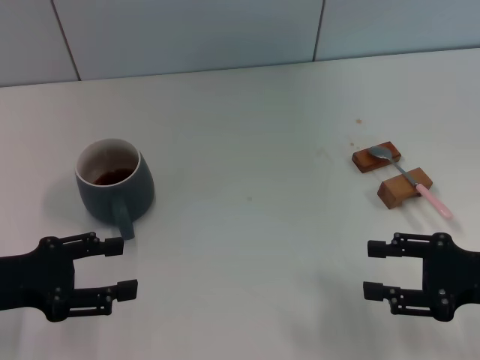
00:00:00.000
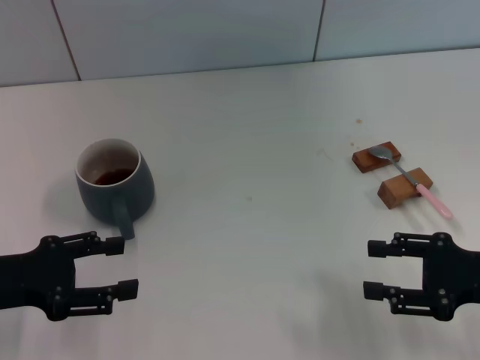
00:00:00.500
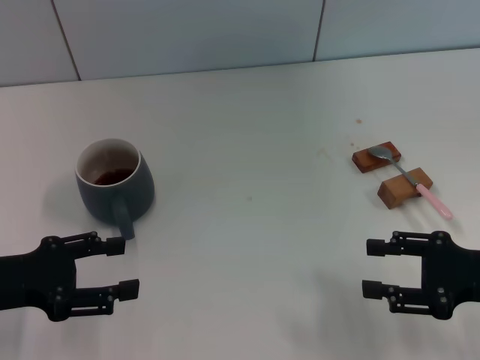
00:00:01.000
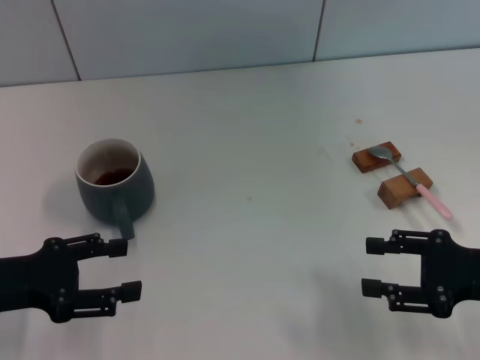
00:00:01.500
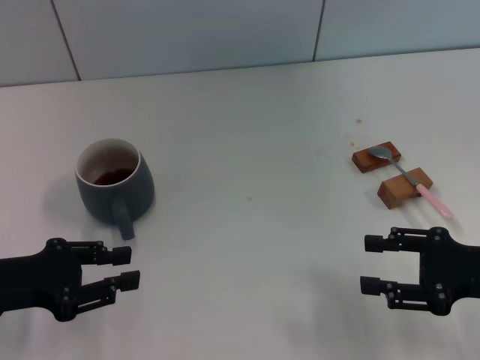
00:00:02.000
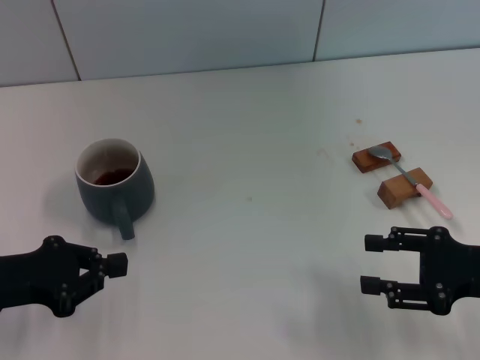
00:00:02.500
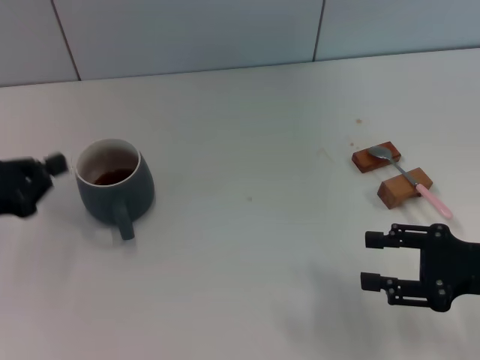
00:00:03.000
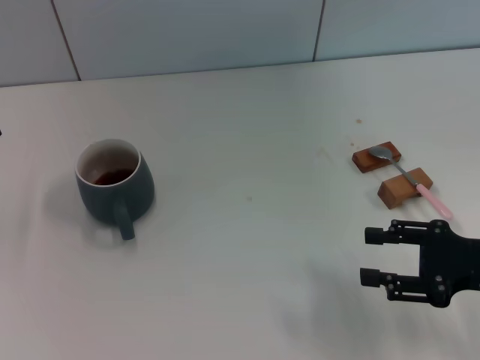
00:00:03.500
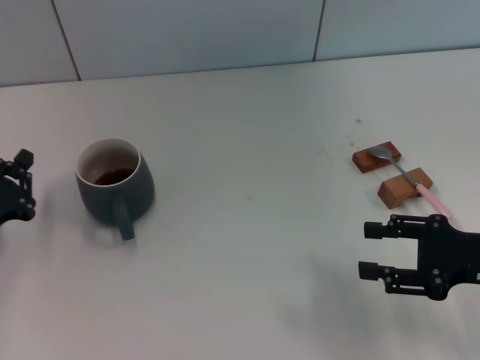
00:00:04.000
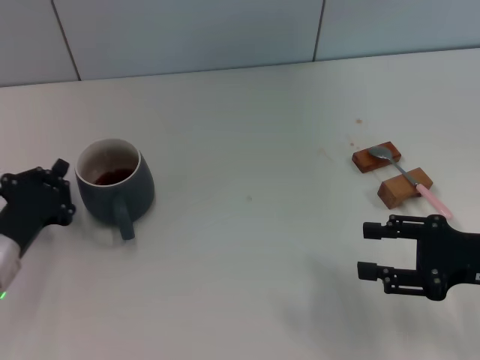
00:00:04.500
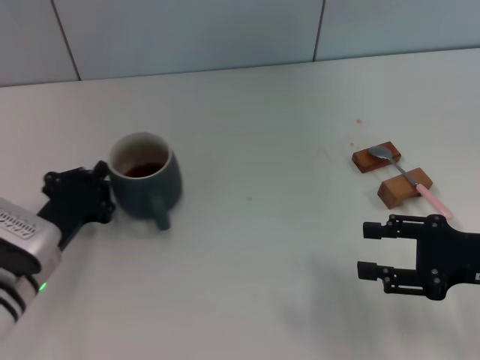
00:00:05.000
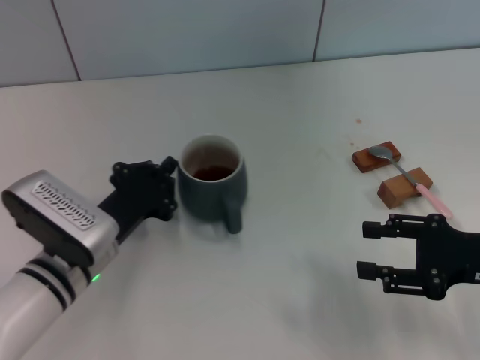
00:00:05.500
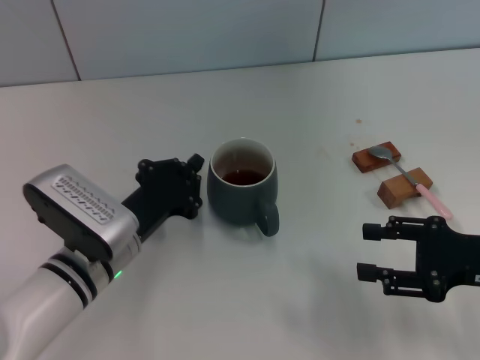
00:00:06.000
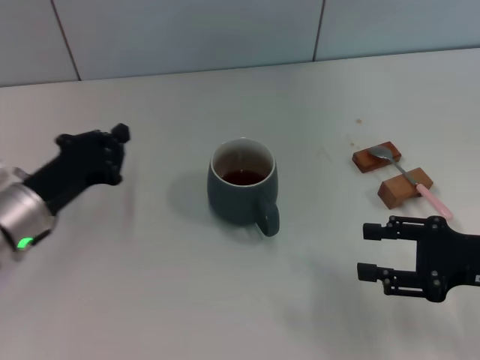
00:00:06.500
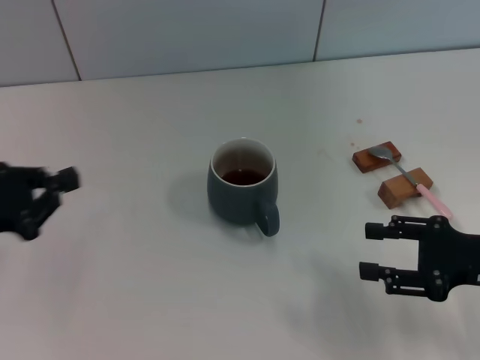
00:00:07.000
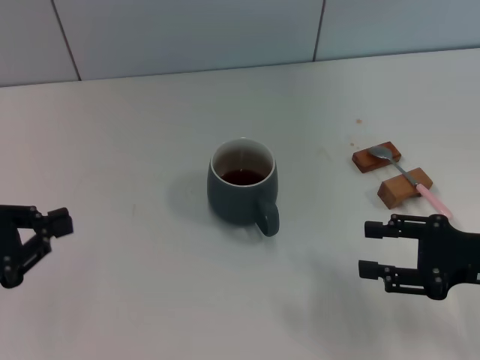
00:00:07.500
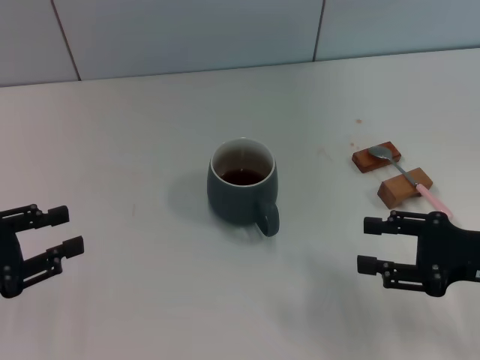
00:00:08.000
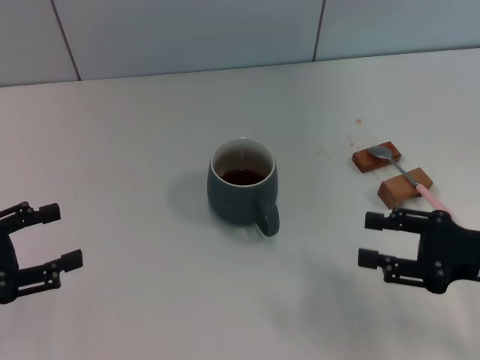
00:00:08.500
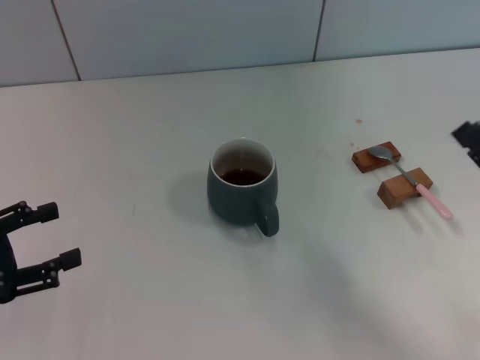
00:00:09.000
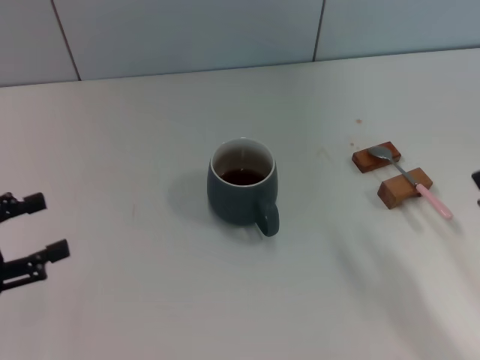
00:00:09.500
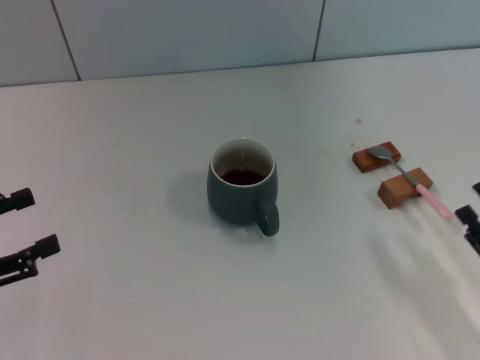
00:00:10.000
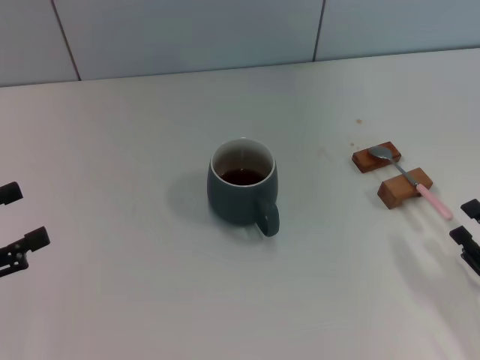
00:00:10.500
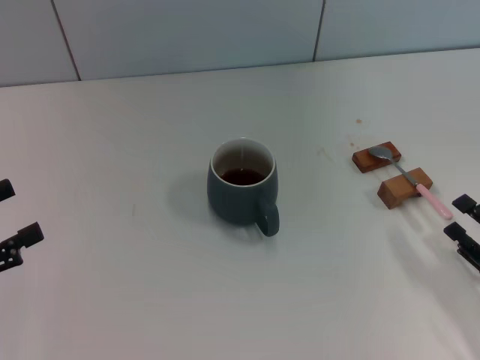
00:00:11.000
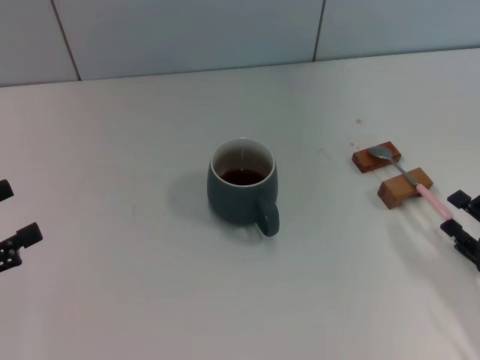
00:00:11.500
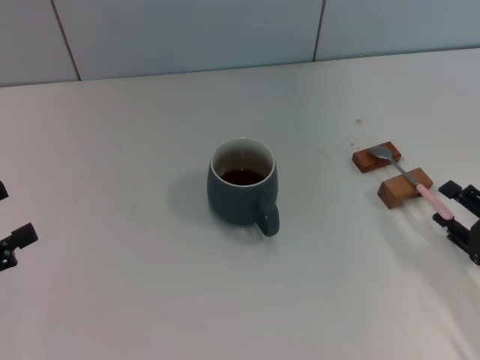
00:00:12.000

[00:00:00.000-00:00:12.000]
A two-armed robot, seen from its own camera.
Task of the whole recording: Move the grey cup to the center, lift the pink spoon, stir it three times in the cup, and put the spoon into the cup.
Step, 00:00:00.000 to 00:00:06.000: Move the cup with coffee to the center of view with the left gripper.
00:00:00.000 to 00:00:02.000: Neither gripper changes place.
00:00:02.000 to 00:00:04.000: The left gripper travels downward by roughly 5 cm, and closes up.
00:00:04.000 to 00:00:06.000: The left gripper heads to the right, covering about 15 cm.
00:00:06.000 to 00:00:08.000: The left gripper travels to the left by approximately 20 cm, and opens.
00:00:08.000 to 00:00:10.000: The right gripper travels backward and downward by roughly 10 cm; the left gripper opens.
00:00:10.000 to 00:00:12.000: The right gripper shifts by about 5 cm.

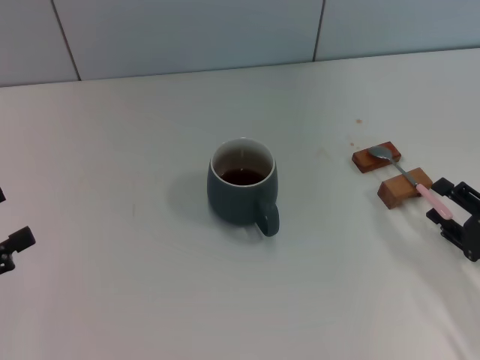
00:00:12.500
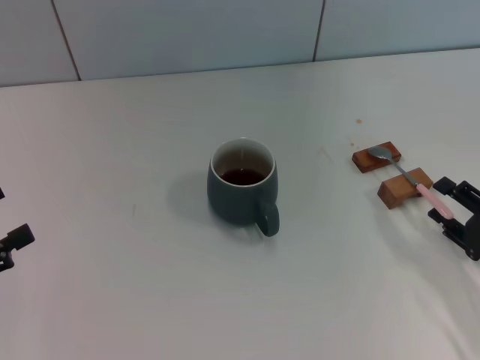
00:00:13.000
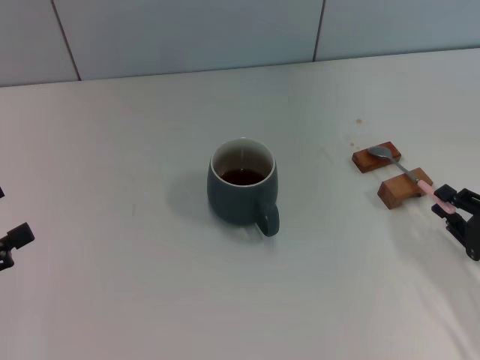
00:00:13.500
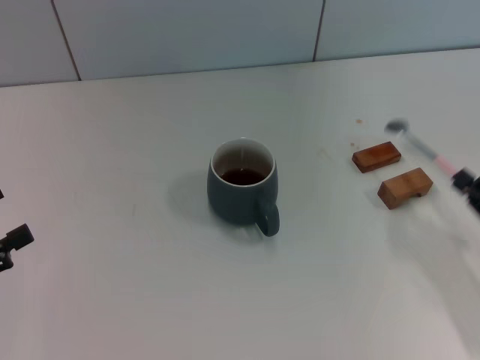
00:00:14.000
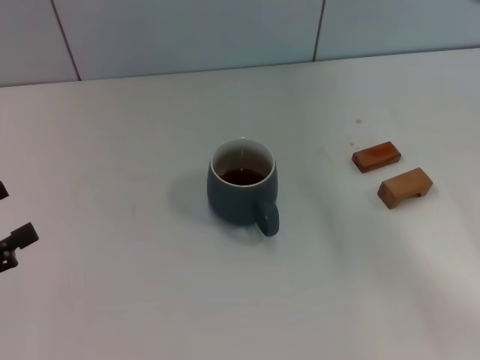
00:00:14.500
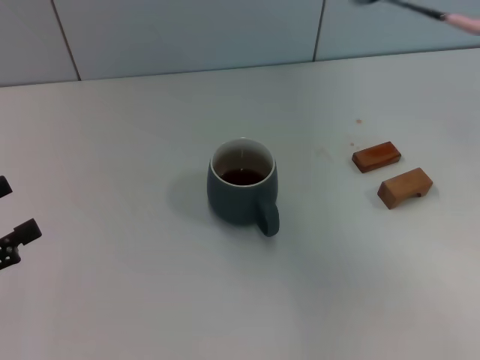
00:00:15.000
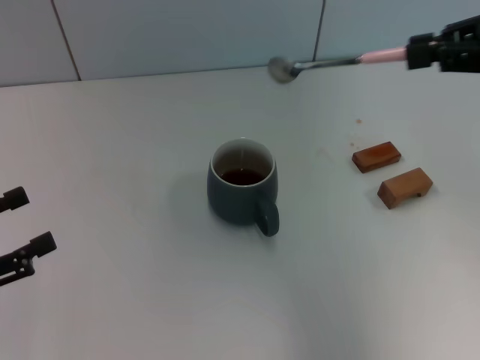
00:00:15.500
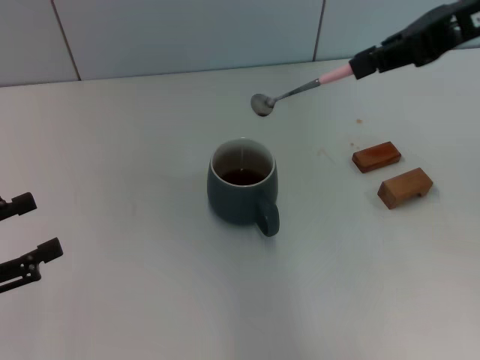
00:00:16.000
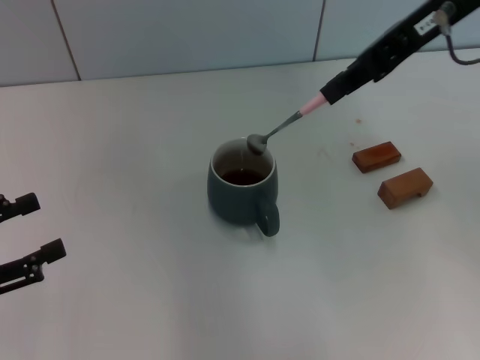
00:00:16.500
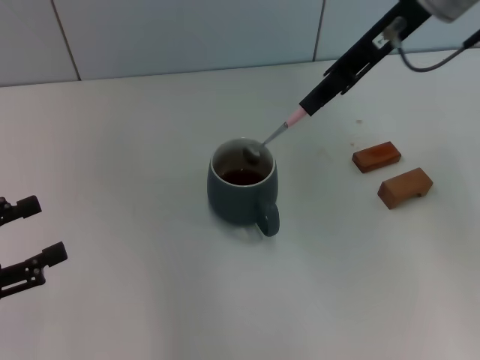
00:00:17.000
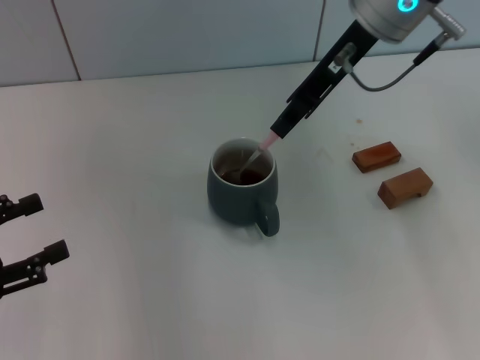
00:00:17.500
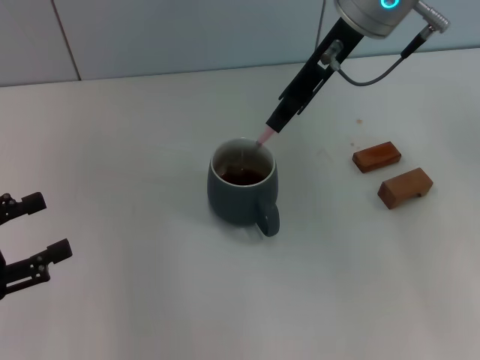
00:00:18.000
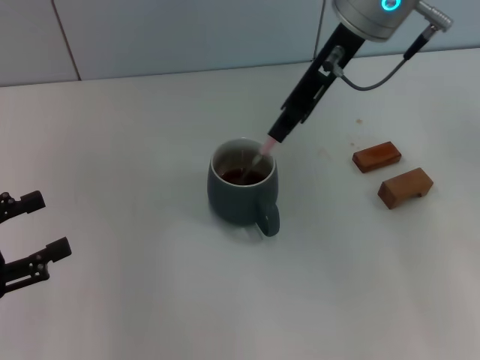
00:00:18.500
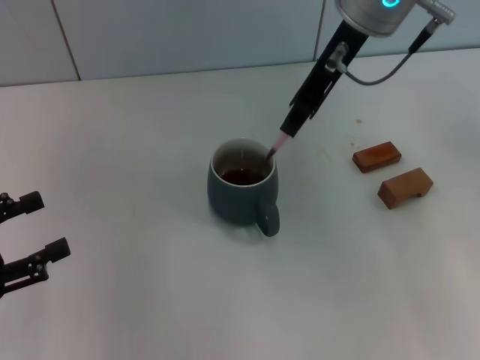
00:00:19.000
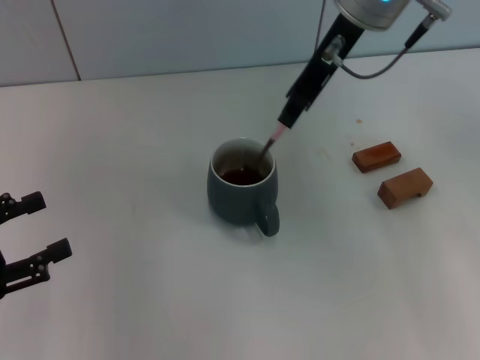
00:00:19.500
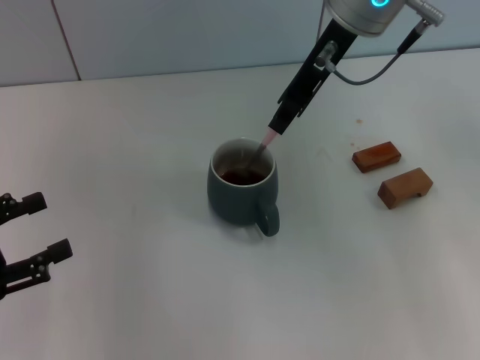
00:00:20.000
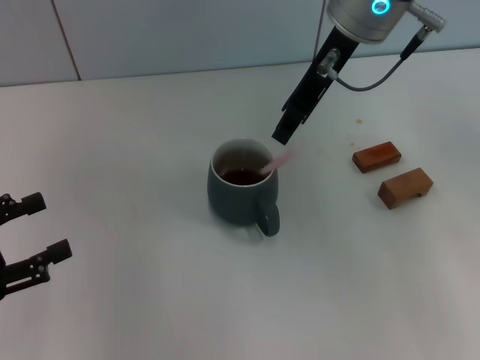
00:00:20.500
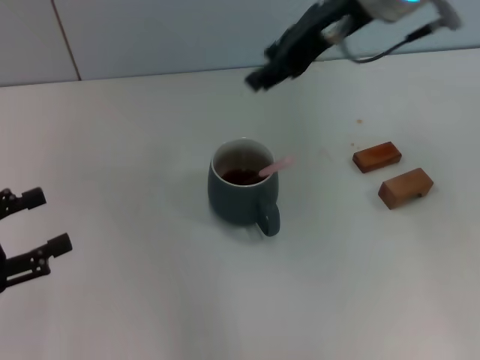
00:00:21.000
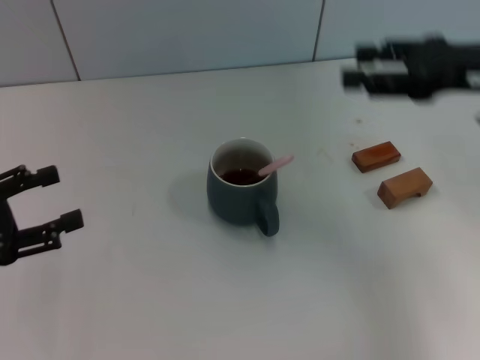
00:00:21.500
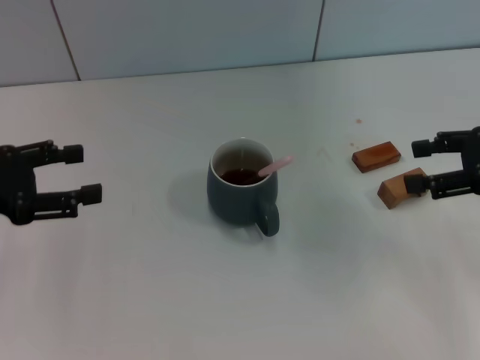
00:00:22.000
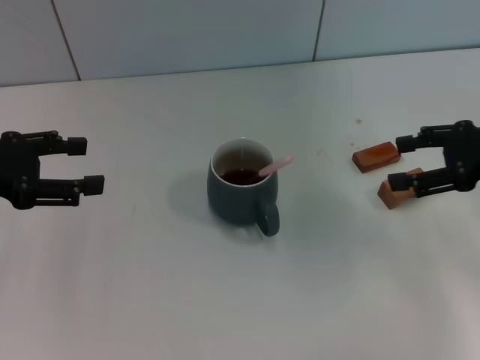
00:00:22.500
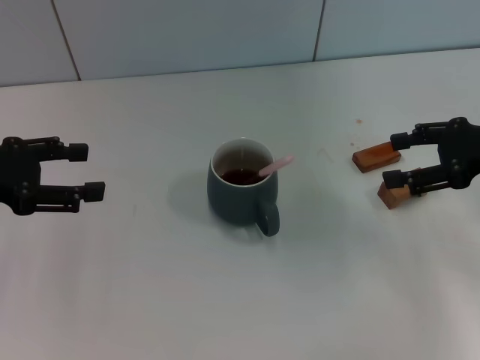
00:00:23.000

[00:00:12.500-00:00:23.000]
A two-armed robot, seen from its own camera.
Task of the whole recording: Move the grey cup to the center, lift the pink spoon, stir it three times in the cup, and put the spoon into the cup.
Step, 00:00:14.000 to 00:00:20.500: Stir the coffee in the cup with the right gripper.
00:00:12.500 to 00:00:14.500: The right gripper is displaced upward by about 10 cm, and closes up.
00:00:14.500 to 00:00:16.500: The right gripper shifts some 30 cm upward, forward and to the left.
00:00:16.500 to 00:00:19.000: The right gripper shifts some 10 cm to the left.
00:00:19.000 to 00:00:21.000: The right gripper opens.
00:00:21.000 to 00:00:23.000: The left gripper moves forward and upward, approximately 10 cm. Meanwhile the right gripper moves to the right and downward, roughly 25 cm.

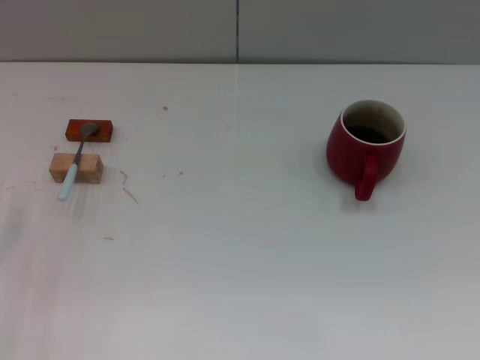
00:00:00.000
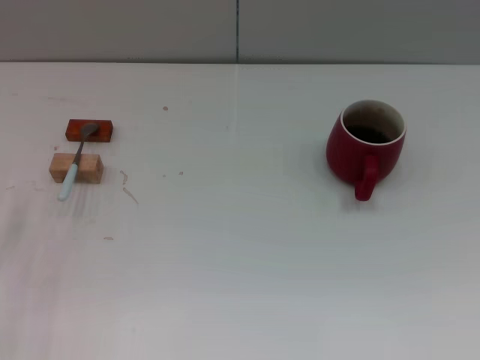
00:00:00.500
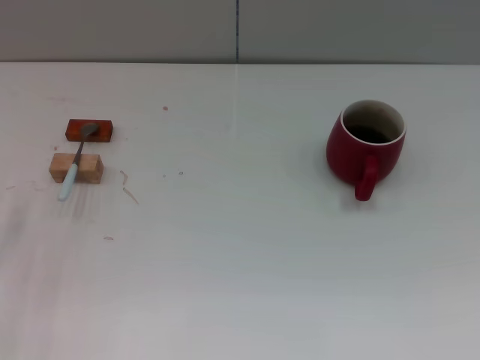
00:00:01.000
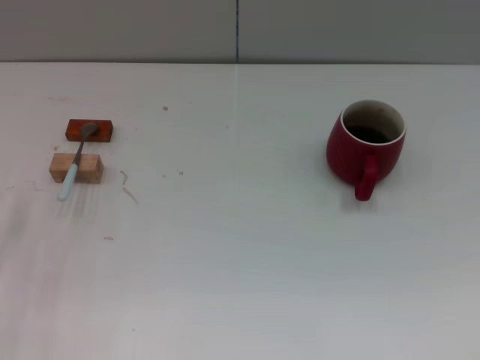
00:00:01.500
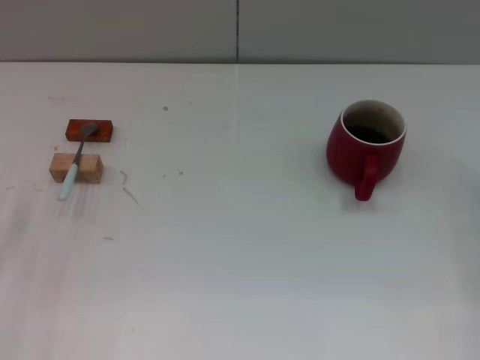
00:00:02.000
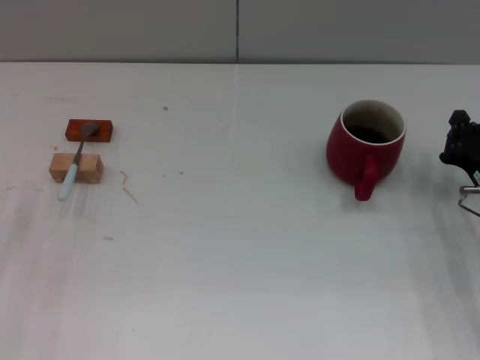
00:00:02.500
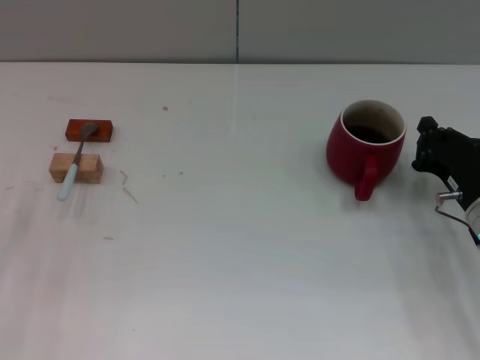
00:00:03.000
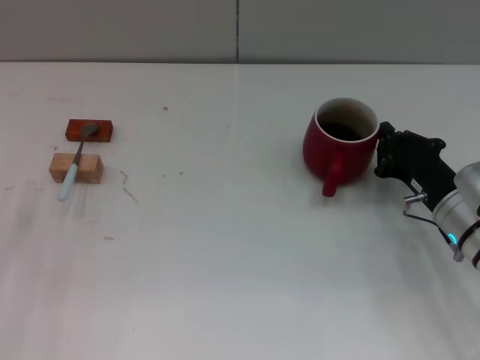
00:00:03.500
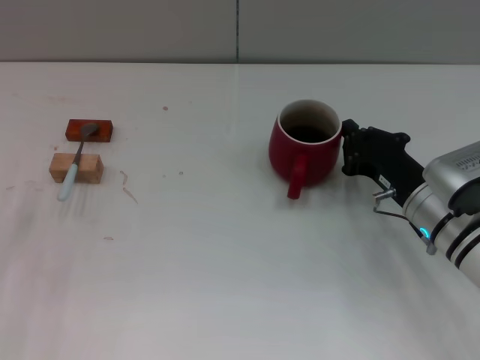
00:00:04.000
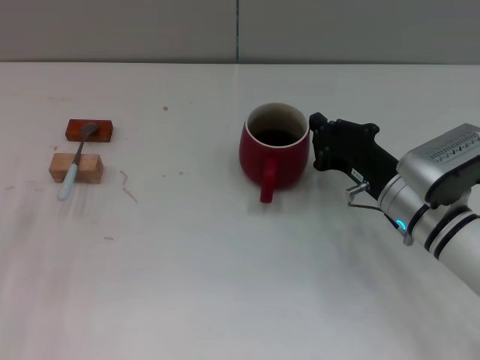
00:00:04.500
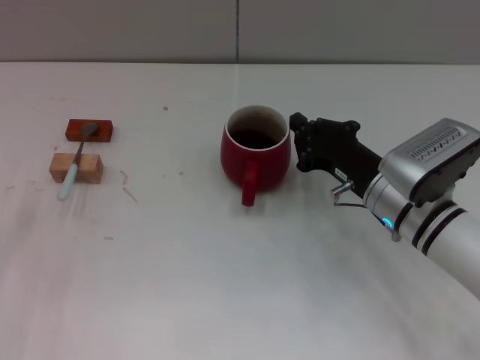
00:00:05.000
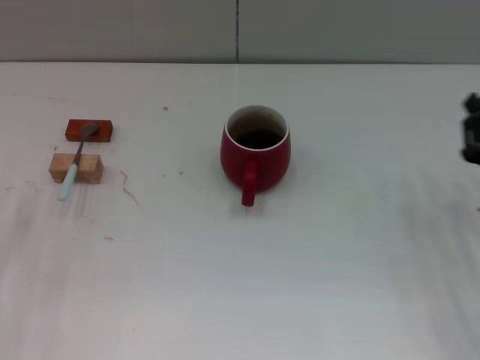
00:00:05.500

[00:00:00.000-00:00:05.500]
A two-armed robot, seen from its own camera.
Task of the whole recording: Move the red cup to the center, lift the blue spoon, stir it three times in the cup, and put the spoon into the cup.
00:00:02.000 to 00:00:03.500: The right gripper goes about 10 cm to the left.
00:00:03.500 to 00:00:05.500: The right gripper travels to the right and backward by approximately 10 cm.
